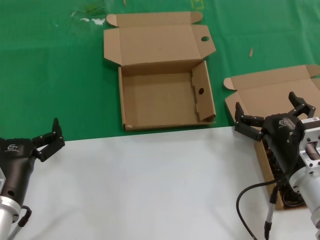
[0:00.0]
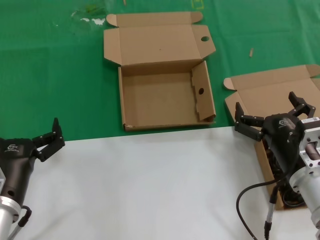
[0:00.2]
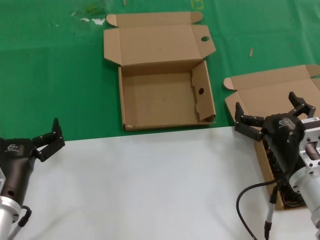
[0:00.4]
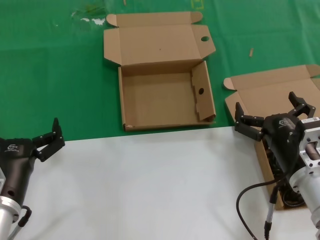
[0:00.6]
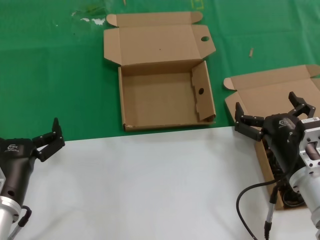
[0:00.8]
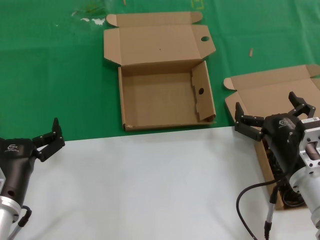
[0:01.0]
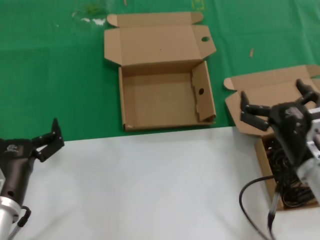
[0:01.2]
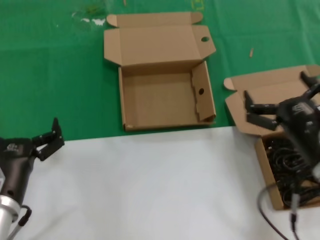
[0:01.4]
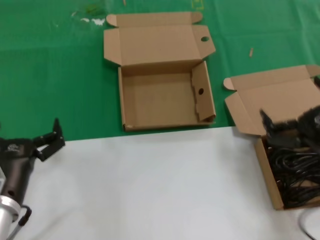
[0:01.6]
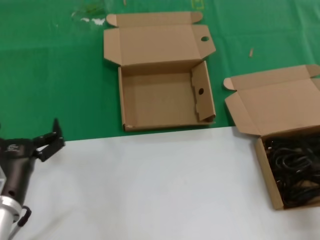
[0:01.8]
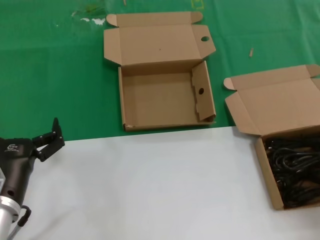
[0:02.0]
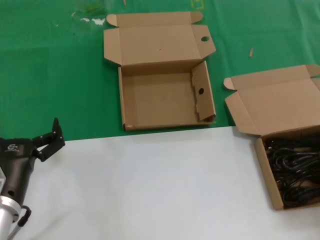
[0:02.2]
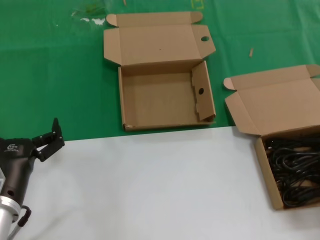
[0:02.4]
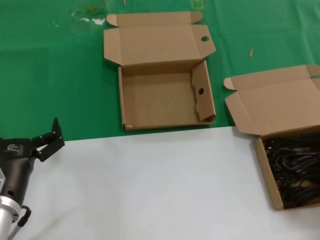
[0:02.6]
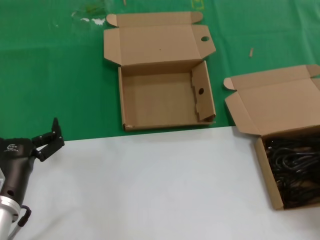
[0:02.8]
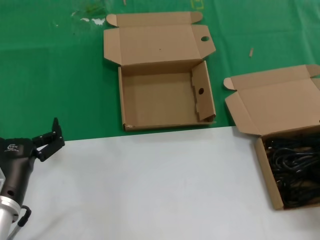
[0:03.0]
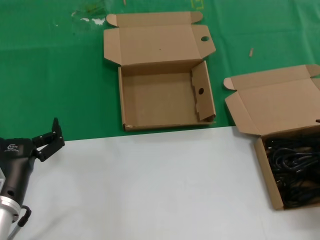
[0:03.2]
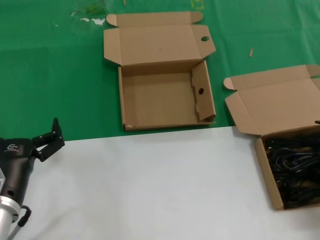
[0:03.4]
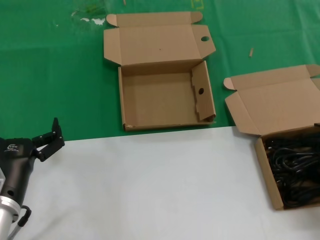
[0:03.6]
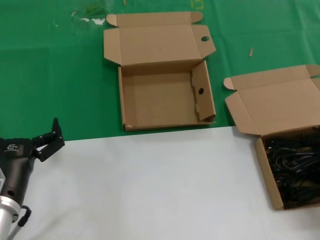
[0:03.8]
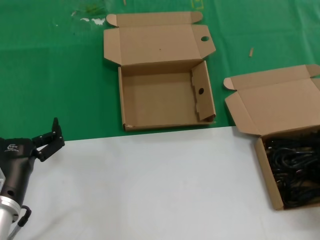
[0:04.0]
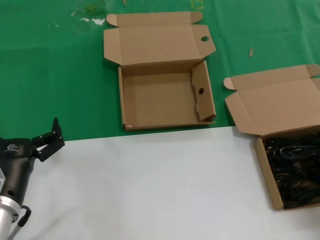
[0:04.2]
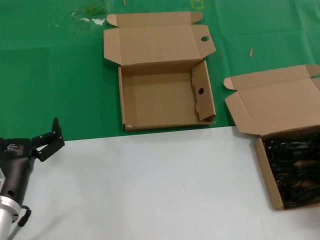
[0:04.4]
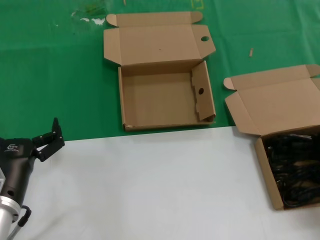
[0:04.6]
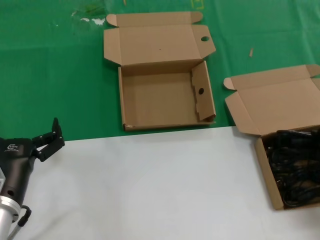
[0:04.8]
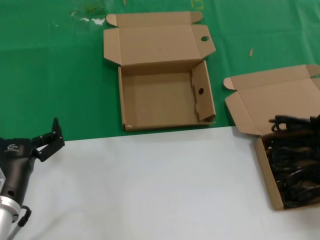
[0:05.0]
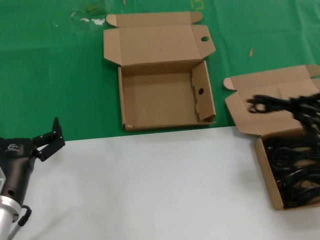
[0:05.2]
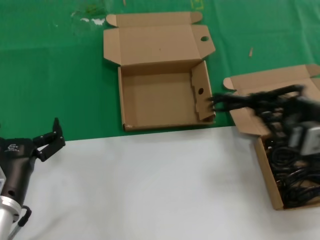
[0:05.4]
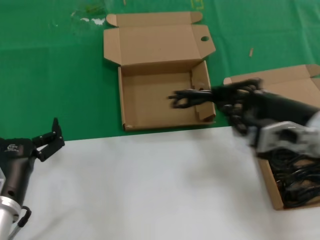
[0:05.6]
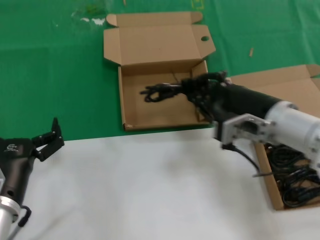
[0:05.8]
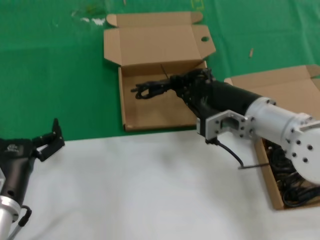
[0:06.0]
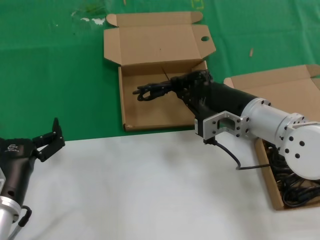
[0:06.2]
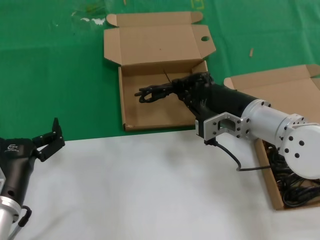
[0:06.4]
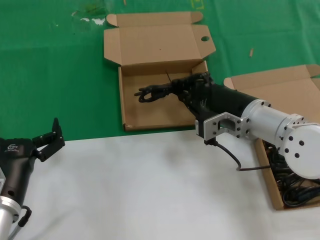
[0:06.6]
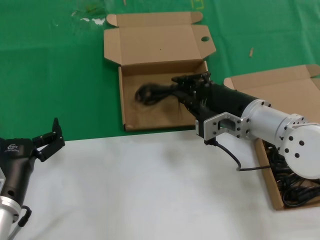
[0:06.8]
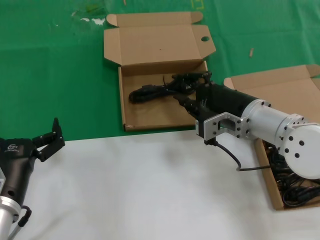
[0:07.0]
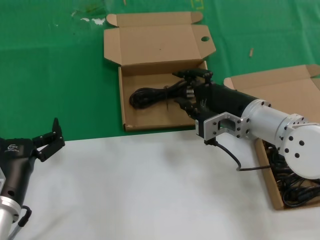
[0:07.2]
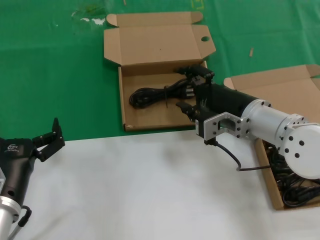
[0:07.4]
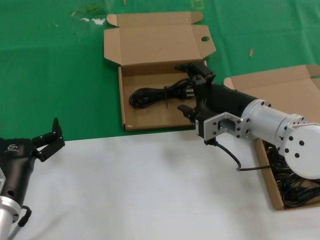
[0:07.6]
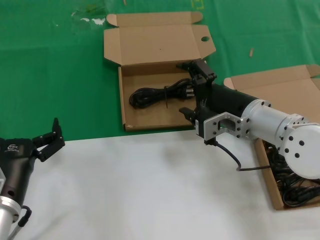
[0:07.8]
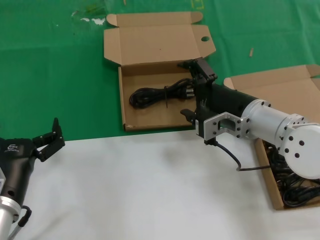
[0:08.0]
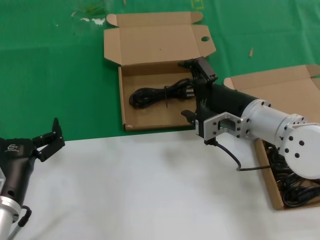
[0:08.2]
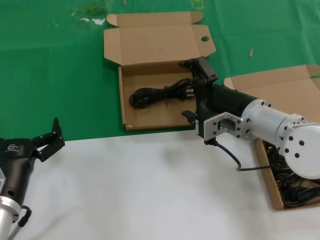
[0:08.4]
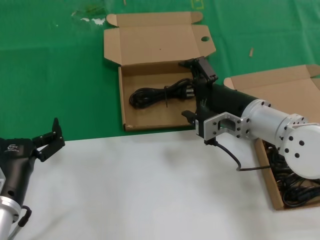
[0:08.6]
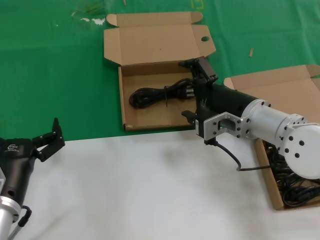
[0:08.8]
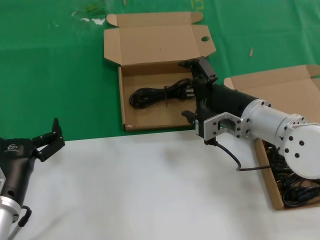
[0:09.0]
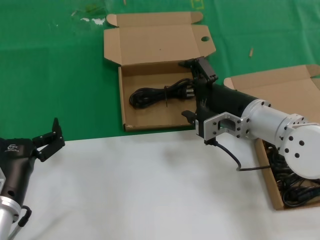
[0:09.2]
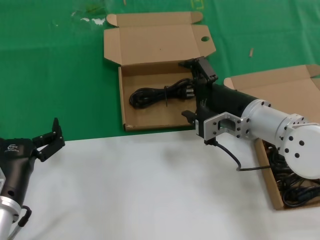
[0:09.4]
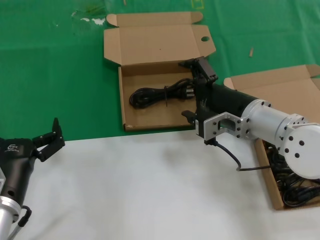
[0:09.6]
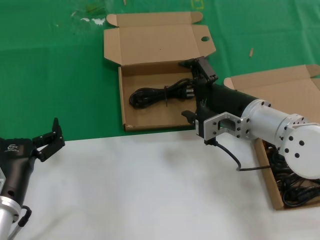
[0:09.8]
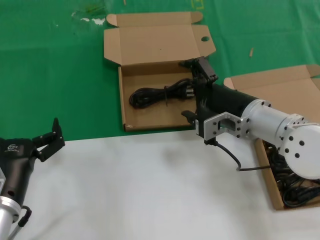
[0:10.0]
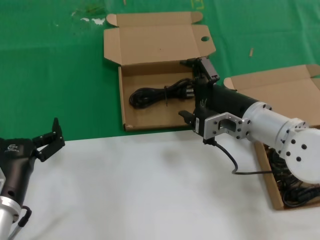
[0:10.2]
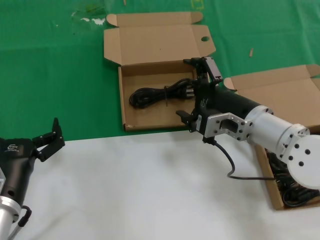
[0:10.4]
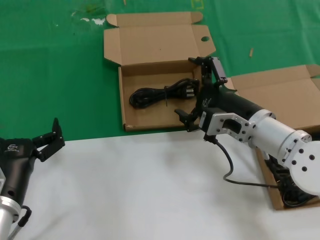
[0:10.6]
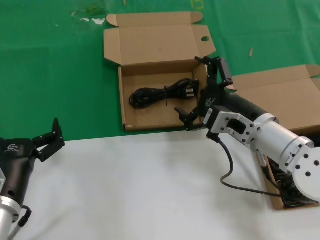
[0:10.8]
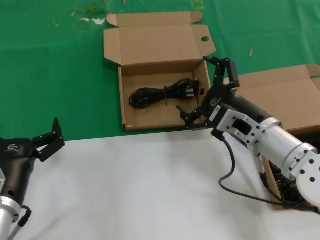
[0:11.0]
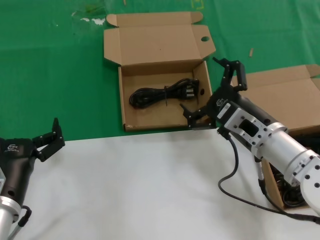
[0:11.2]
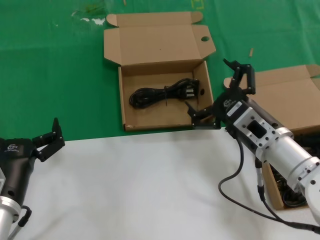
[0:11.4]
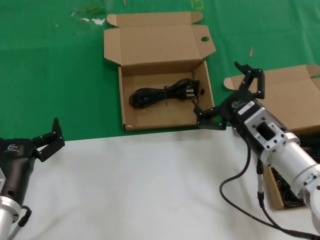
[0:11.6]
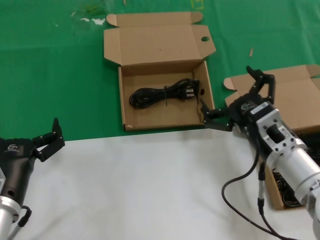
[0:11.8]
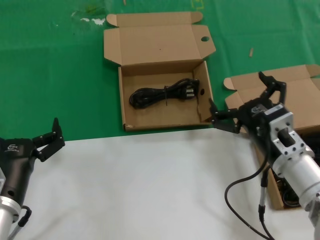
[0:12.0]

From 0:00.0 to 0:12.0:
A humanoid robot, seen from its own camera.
Task of the whole recording: take the parts from the box containing them and put them into an empty box.
Step, from 0:00.0 to 0:04.6: Grasp the data cable.
Step, from 0:04.8 to 0:07.8: Place the data cable in the another box.
From 0:00.0 to 0:01.6: The right hand is displaced upward and to the right by roughly 10 cm.
From 0:01.6 to 0:03.0: The right hand goes approximately 10 cm to the right.
From 0:03.0 to 0:04.4: Both hands stay about where they are.
From 0:04.4 to 0:06.0: The right hand is displaced to the left and forward by roughly 25 cm.
From 0:06.0 to 0:07.6: The hands make only small movements.
From 0:07.6 to 0:09.0: Both hands stay about where they are.
From 0:09.0 to 0:10.4: The hands stay close to where they were, moving slightly.
From 0:10.4 to 0:12.0: The right hand moves backward and downward, some 10 cm.

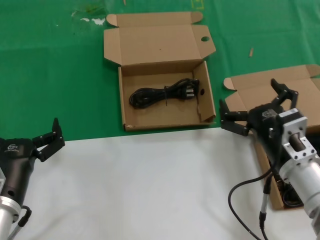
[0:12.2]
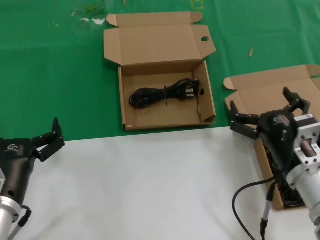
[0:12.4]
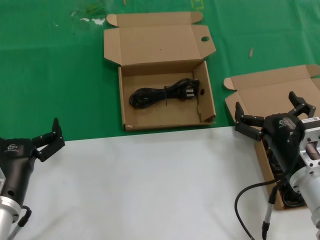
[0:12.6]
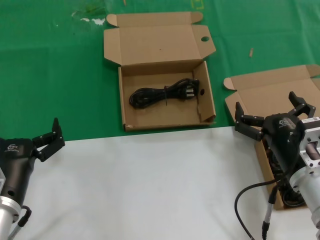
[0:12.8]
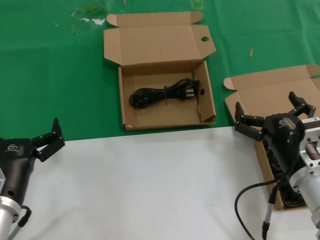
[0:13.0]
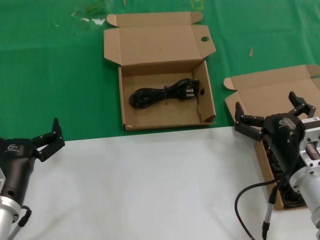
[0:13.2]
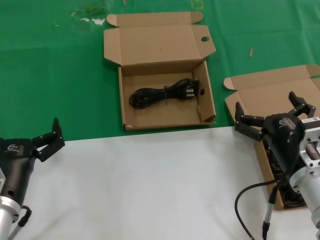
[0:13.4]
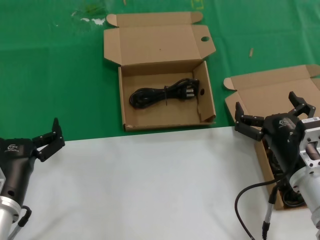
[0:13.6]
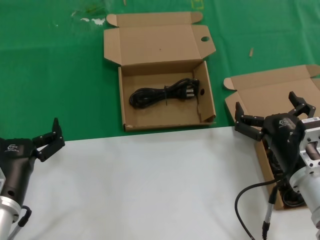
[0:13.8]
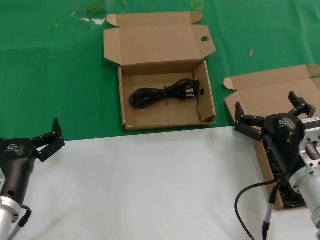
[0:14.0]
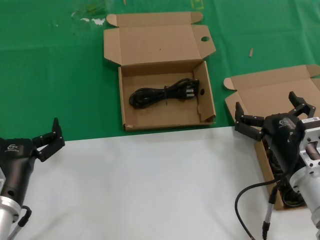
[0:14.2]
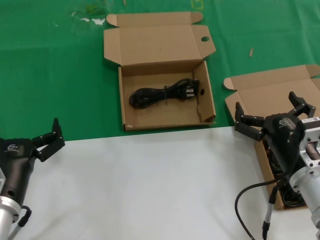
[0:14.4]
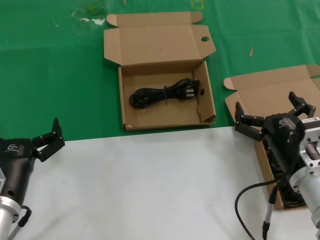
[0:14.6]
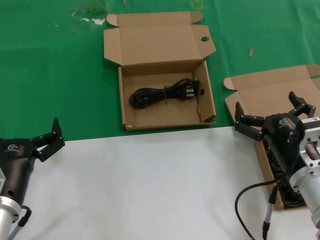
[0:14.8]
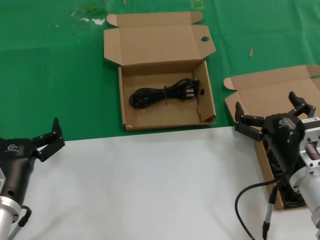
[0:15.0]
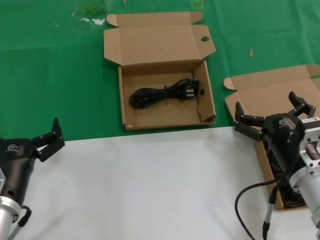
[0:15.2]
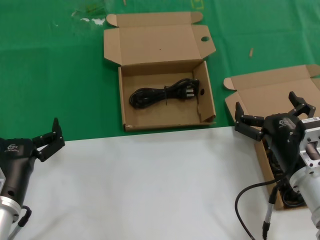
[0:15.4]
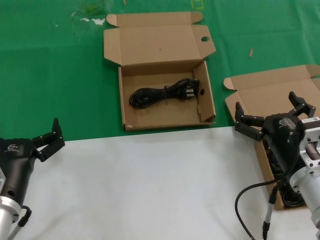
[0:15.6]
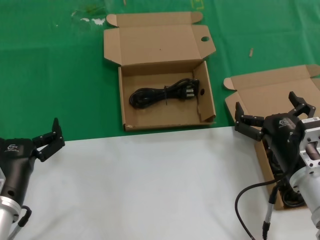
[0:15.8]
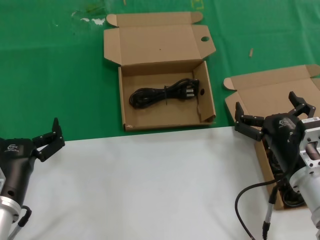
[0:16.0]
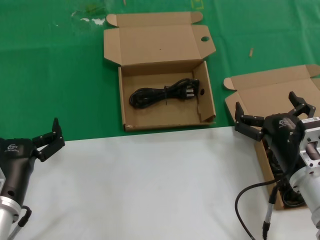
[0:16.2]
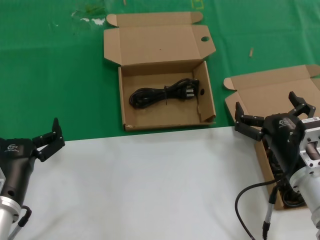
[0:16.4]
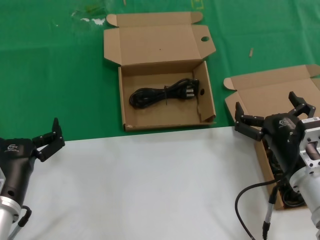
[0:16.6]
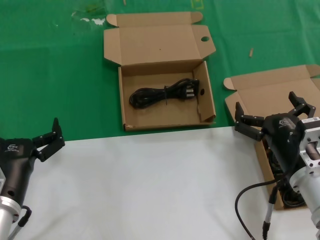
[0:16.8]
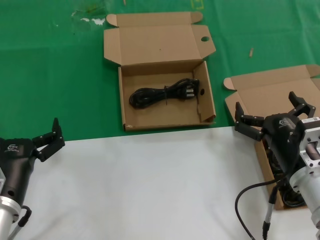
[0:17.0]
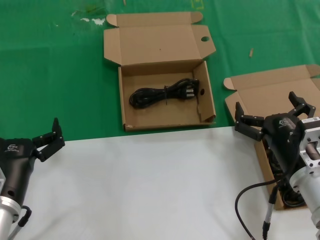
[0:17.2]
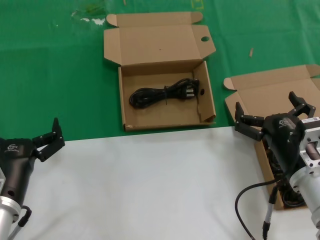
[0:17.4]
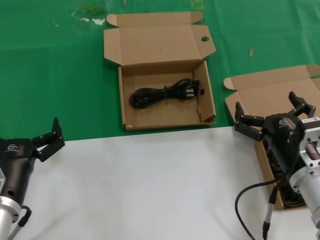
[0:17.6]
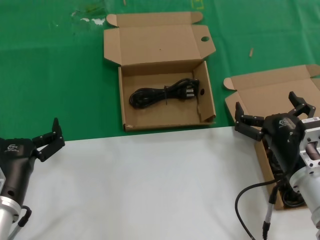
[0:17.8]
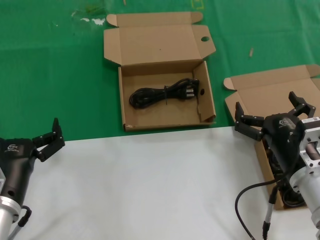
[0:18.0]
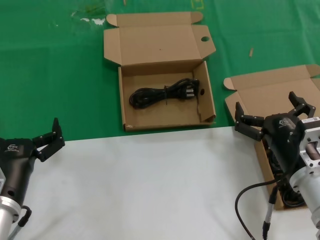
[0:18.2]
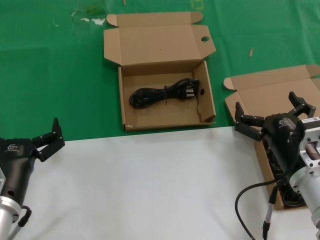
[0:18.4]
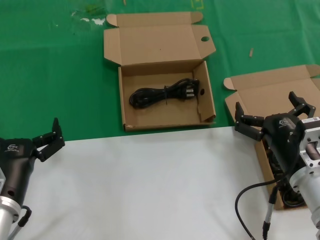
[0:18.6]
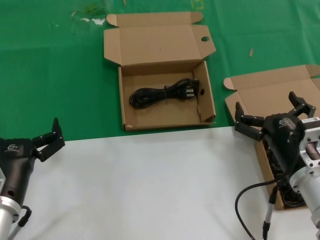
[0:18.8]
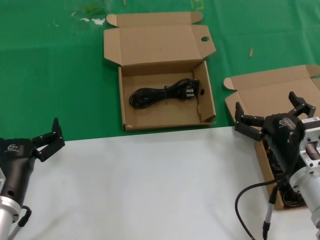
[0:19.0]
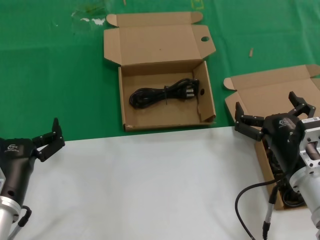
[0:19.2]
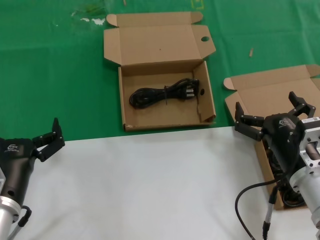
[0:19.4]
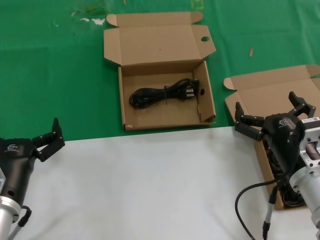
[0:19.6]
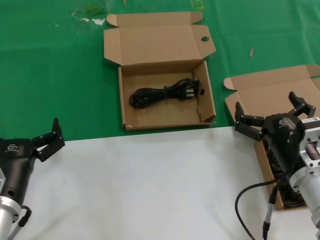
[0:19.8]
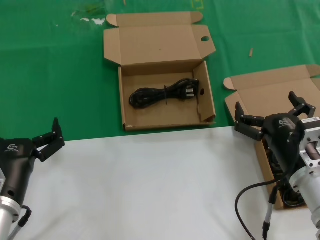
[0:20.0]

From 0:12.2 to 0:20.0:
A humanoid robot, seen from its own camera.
Task of the whole recording: take the parts from the box containing them and put them into an empty box.
From 0:12.2 to 0:13.8: There are only small adjustments of the hands.
From 0:13.8 to 0:20.0: Neither hand changes place.
